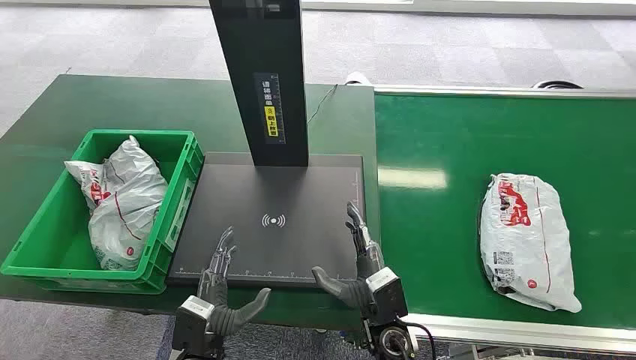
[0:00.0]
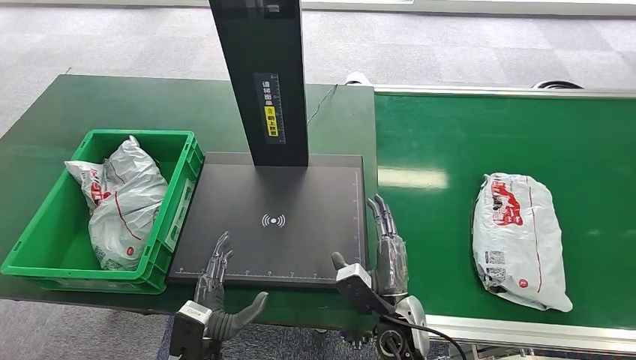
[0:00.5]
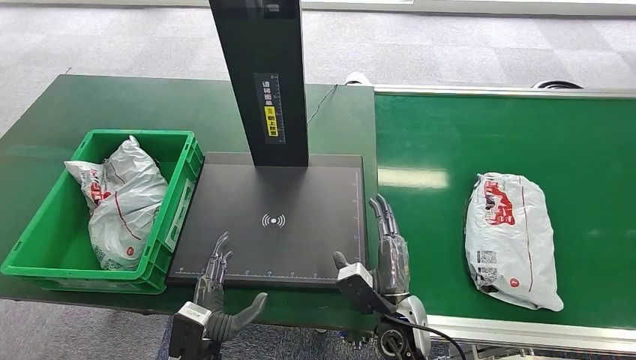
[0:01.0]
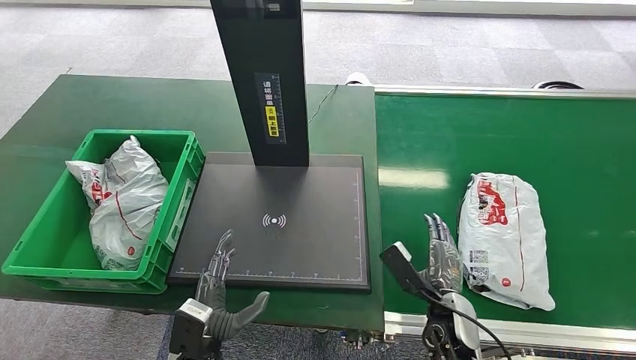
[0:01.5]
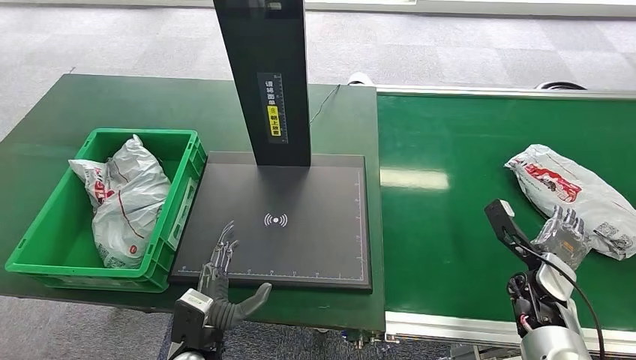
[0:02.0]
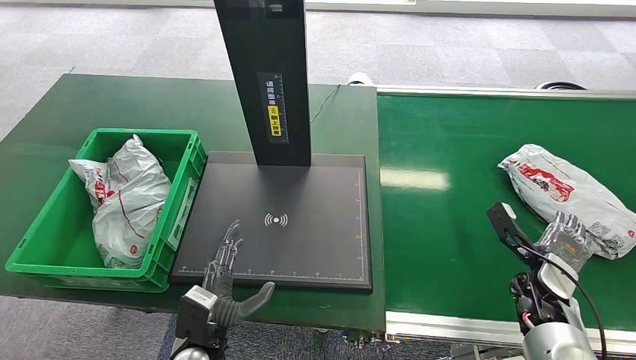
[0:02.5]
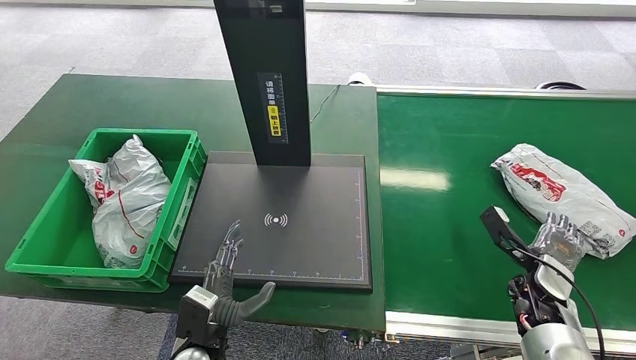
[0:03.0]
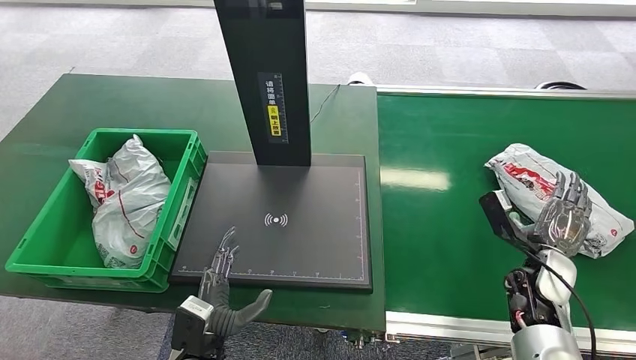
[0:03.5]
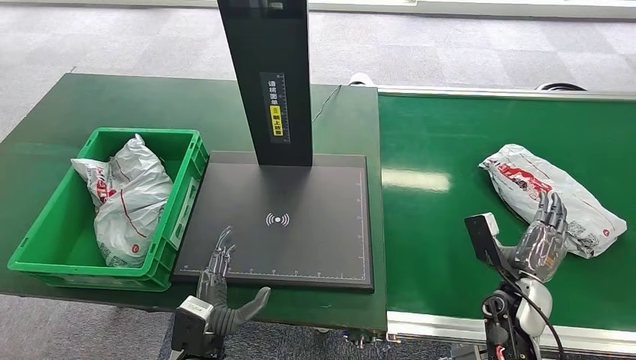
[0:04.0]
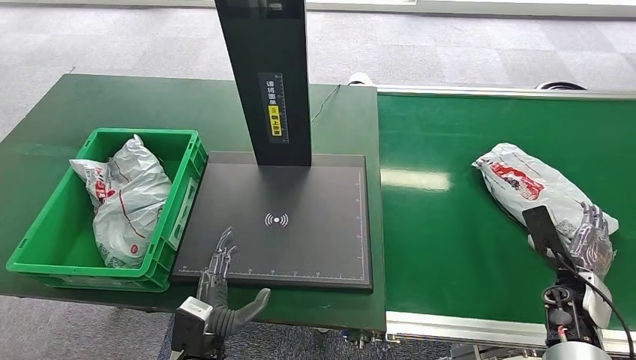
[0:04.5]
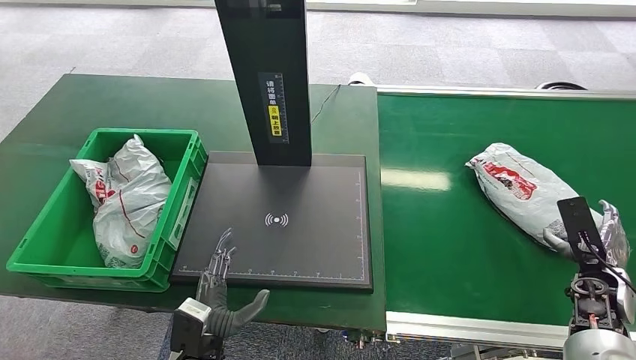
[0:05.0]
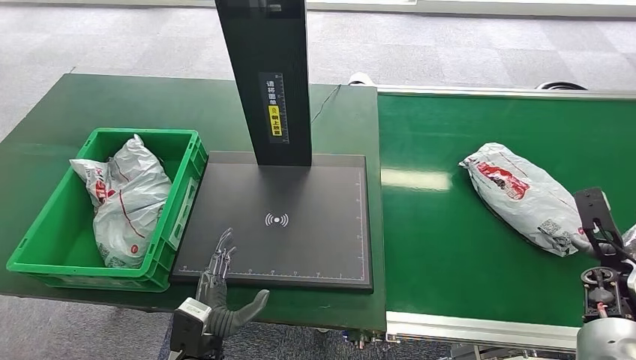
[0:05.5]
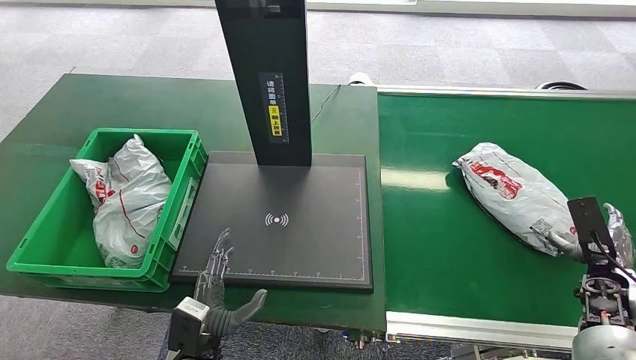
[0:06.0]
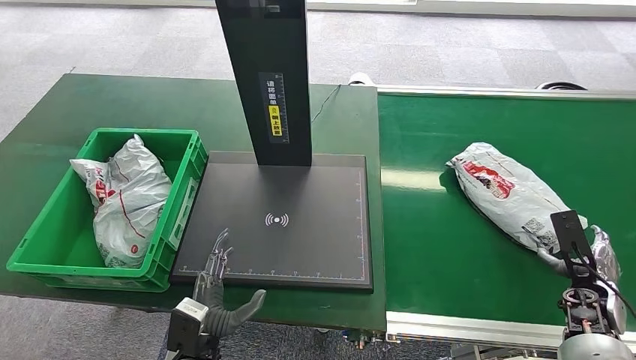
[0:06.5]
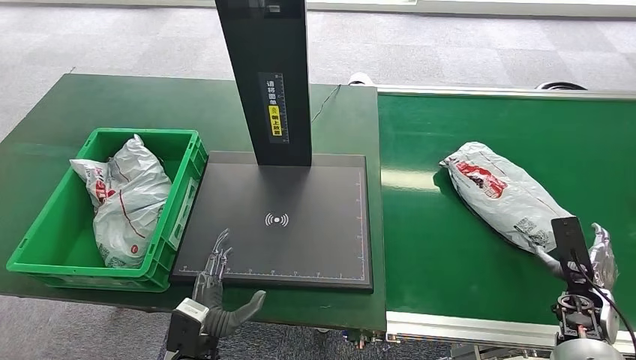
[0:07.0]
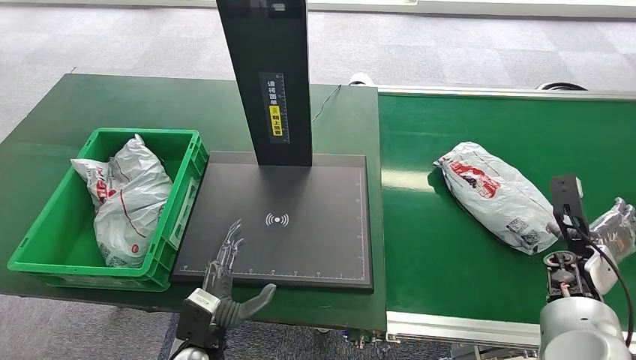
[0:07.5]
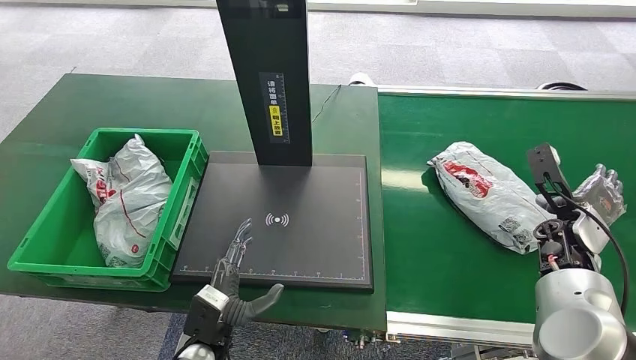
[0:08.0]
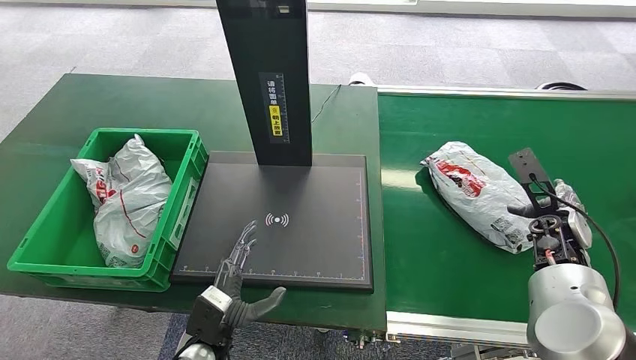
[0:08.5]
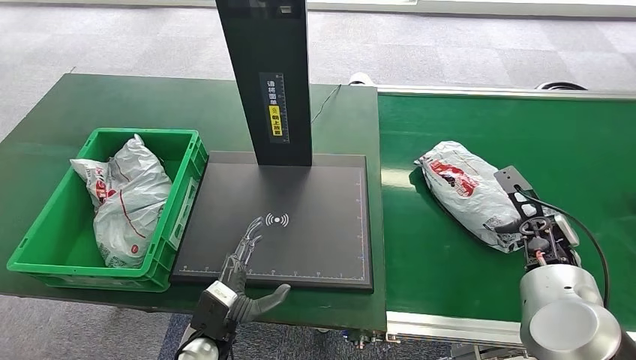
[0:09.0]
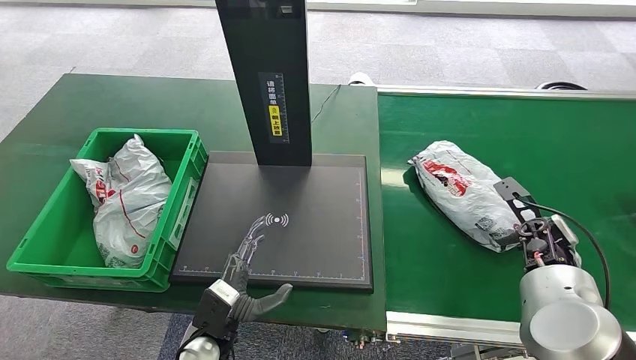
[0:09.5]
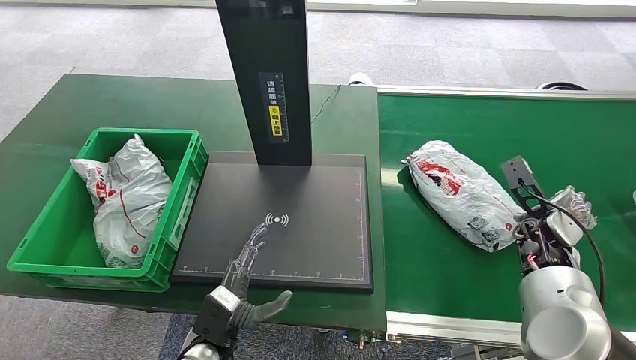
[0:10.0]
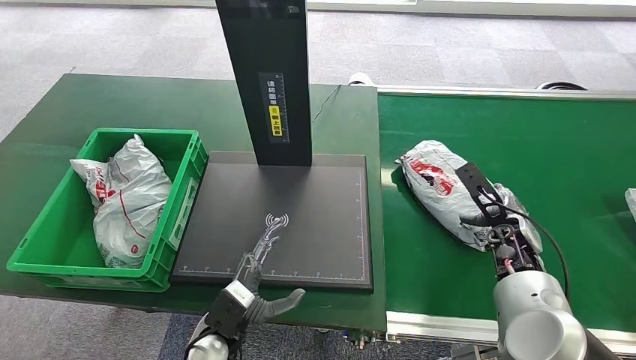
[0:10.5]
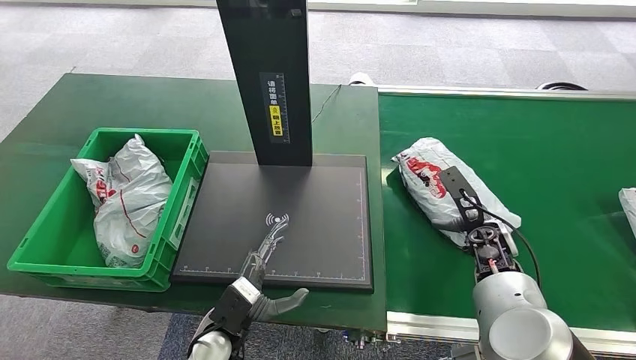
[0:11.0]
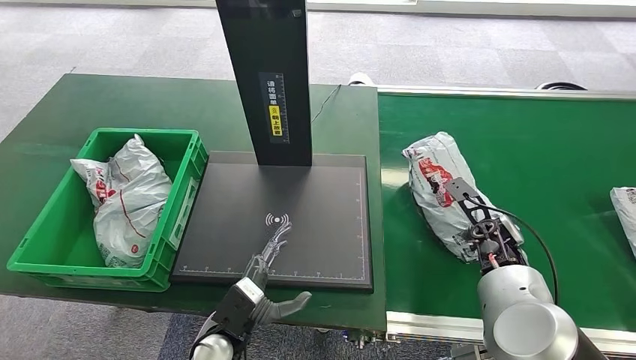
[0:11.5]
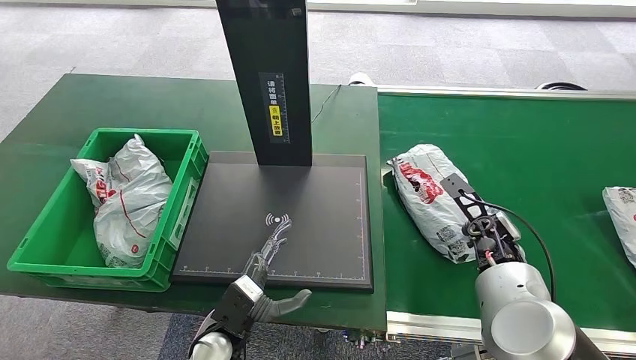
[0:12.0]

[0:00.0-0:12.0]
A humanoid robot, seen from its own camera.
0:02.0 to 0:04.0: The right hand goes some 5 cm to the left.
0:04.0 to 0:06.0: The right hand shifts roughly 15 cm to the right.
0:06.0 to 0:08.0: The right hand heads forward, to the left and upward, covering approximately 15 cm.
0:10.0 to 0:12.0: The right hand moves to the left, some 10 cm.

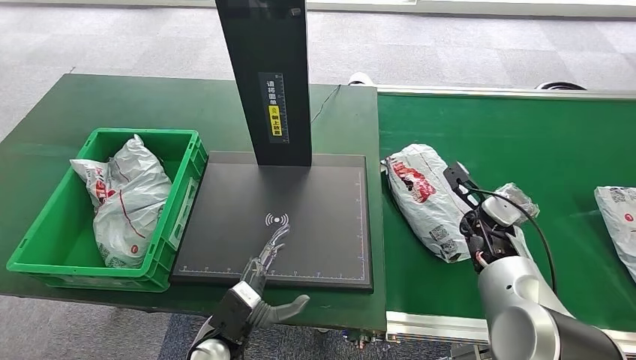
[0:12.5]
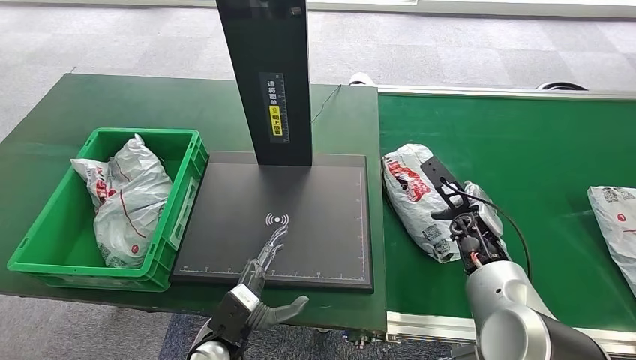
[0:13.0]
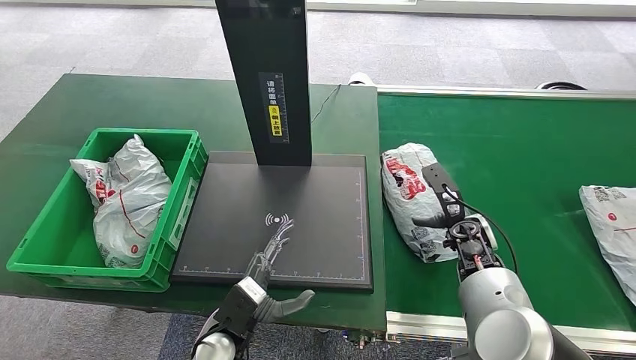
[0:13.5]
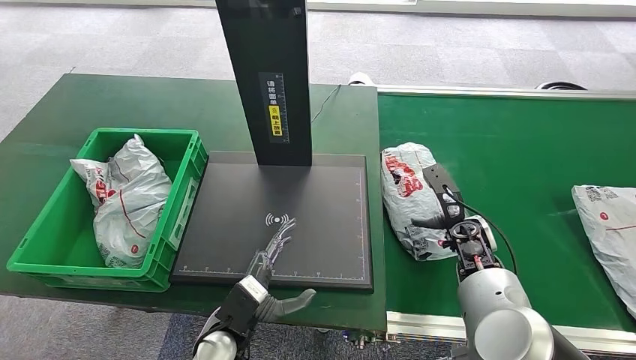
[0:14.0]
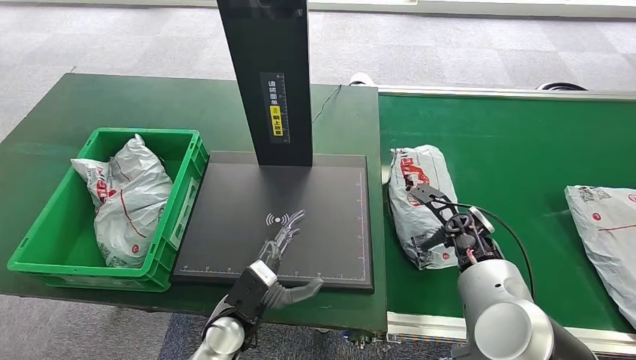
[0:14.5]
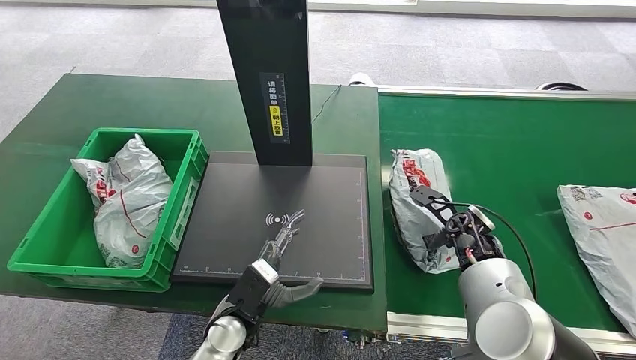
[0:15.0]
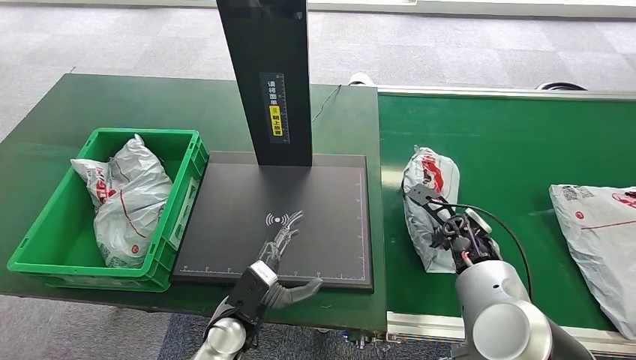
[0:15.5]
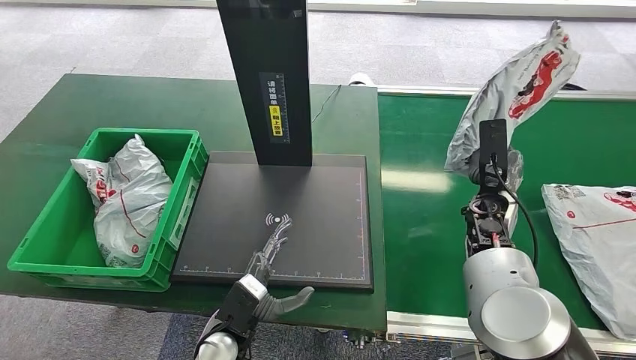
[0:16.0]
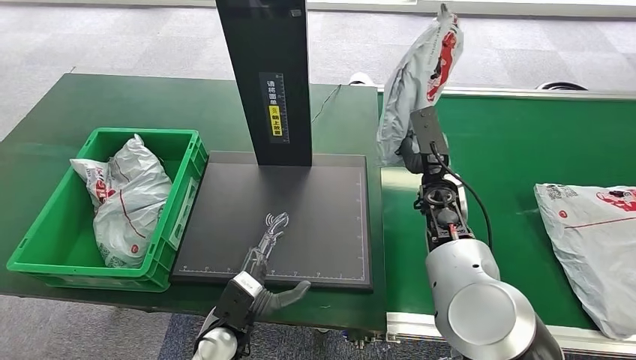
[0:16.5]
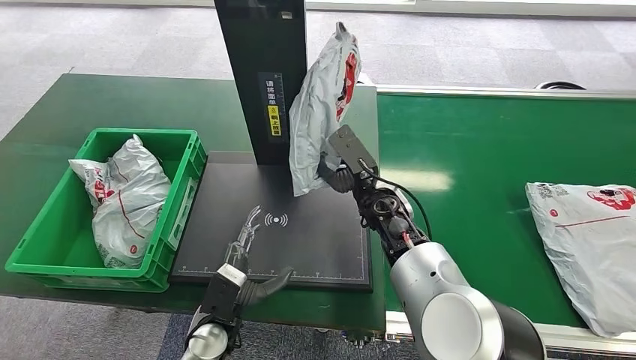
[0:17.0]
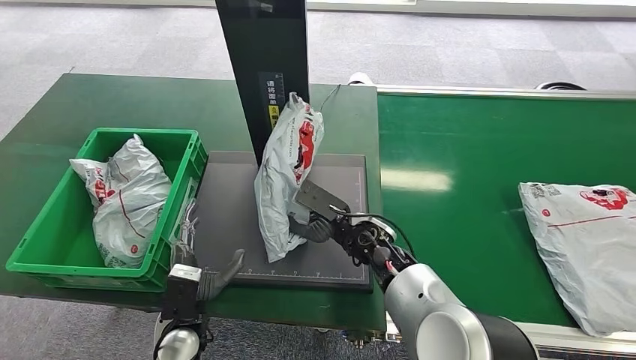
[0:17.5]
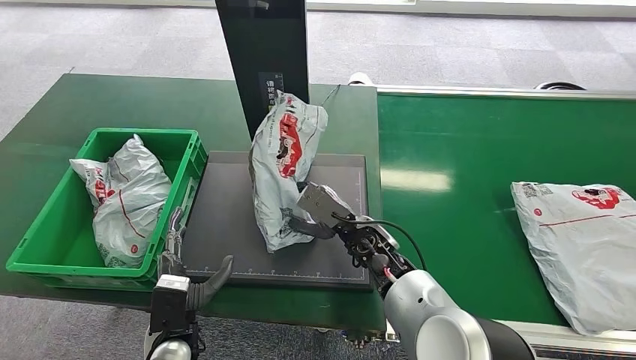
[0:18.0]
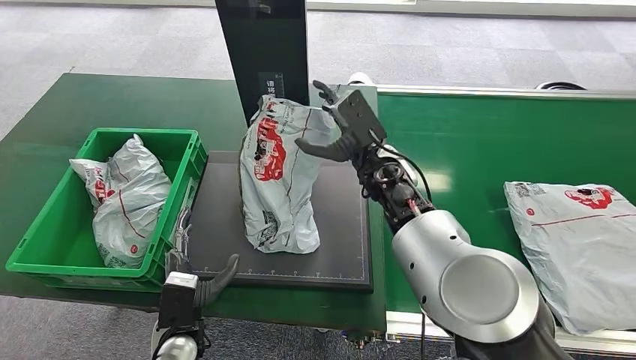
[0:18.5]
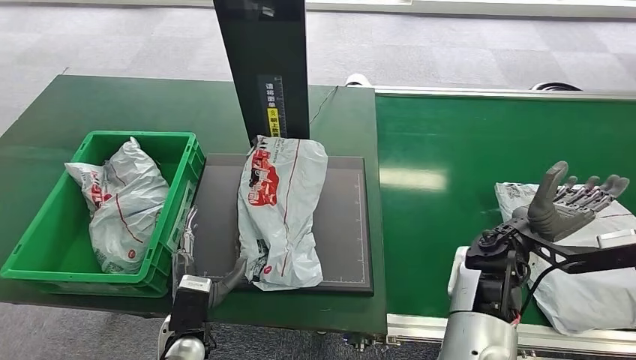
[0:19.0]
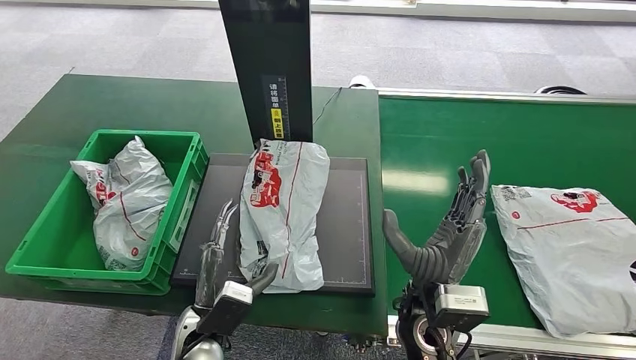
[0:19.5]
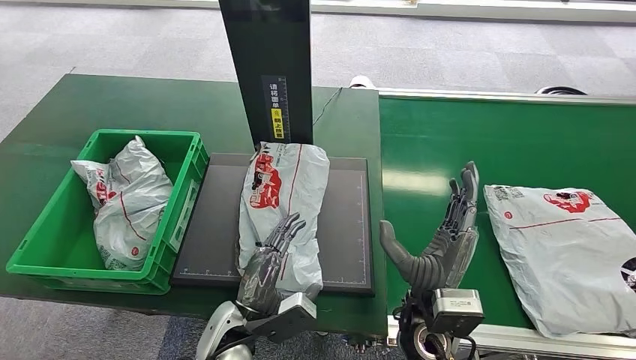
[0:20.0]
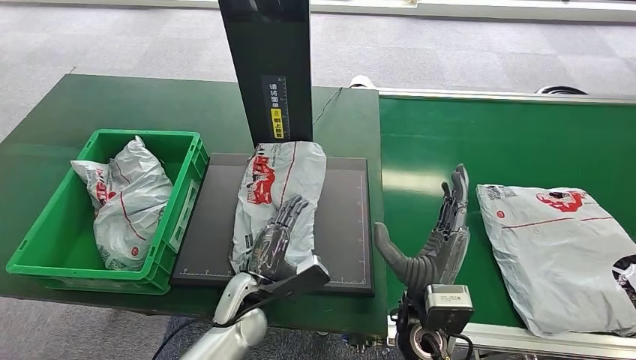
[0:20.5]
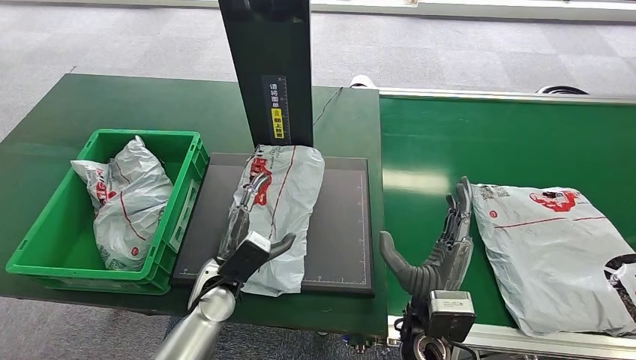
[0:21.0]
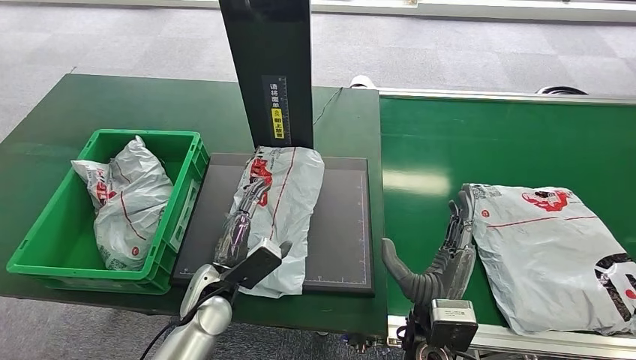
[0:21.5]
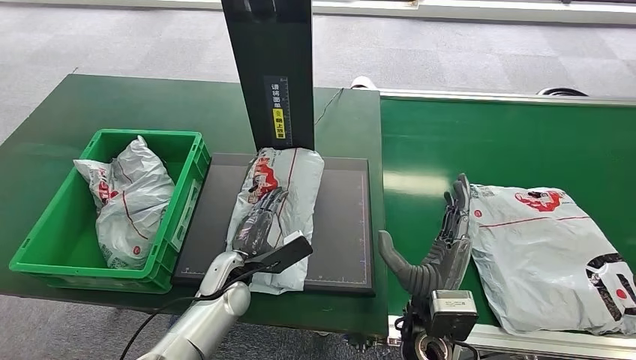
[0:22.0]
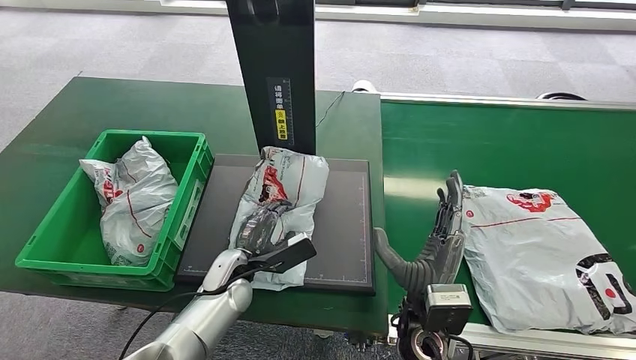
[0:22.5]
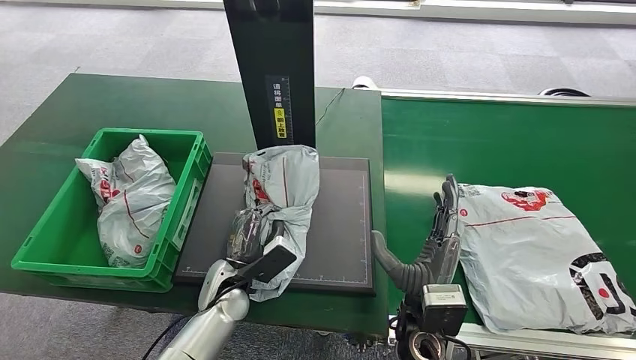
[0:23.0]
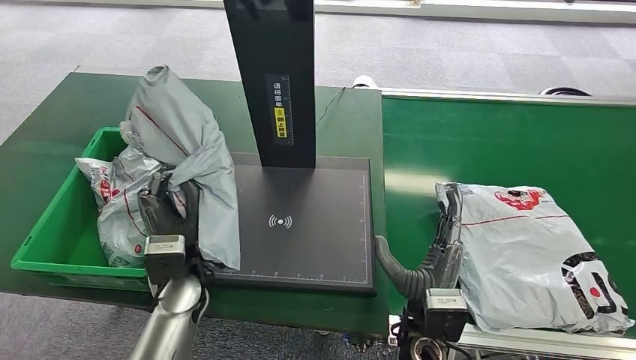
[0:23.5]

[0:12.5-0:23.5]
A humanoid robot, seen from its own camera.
Step, 0:12.5 to 0:16.0: Pick up the package from the conveyor belt.
Step, 0:16.5 to 0:19.0: Place the package onto the inbound machine.
0:20.0 to 0:21.5: The left hand moves forward and to the left, roughly 10 cm.
